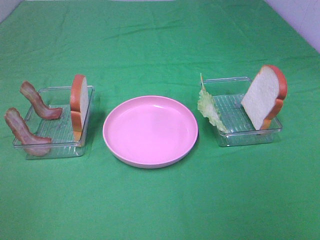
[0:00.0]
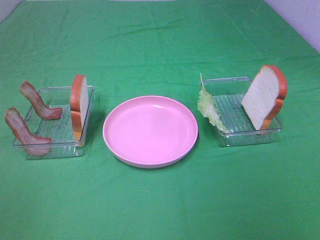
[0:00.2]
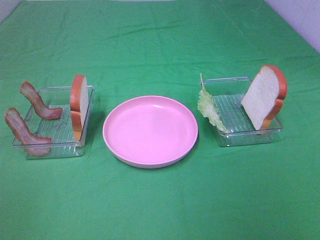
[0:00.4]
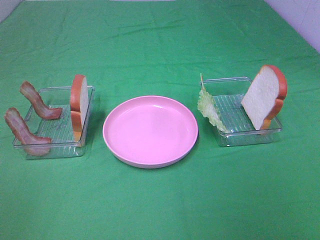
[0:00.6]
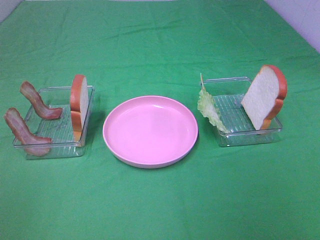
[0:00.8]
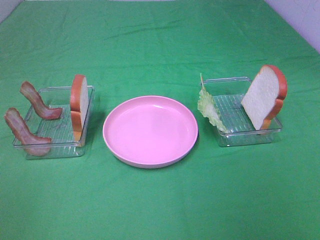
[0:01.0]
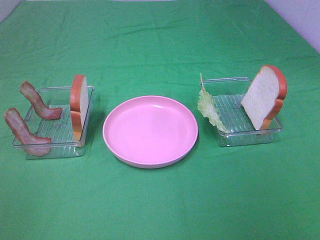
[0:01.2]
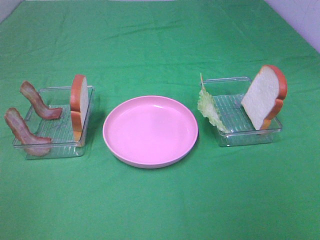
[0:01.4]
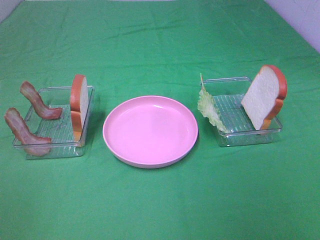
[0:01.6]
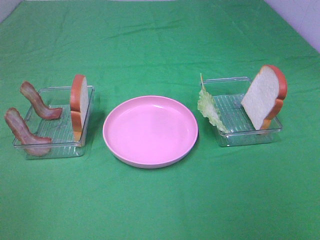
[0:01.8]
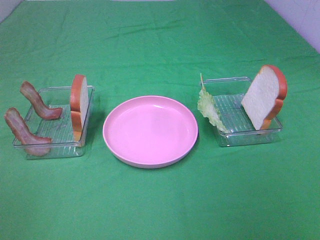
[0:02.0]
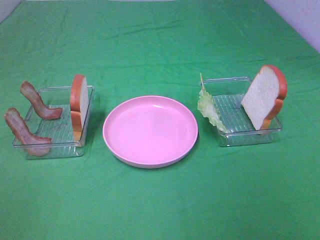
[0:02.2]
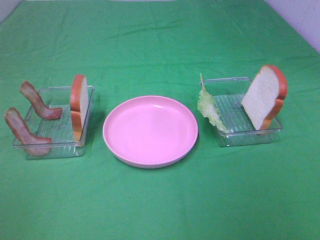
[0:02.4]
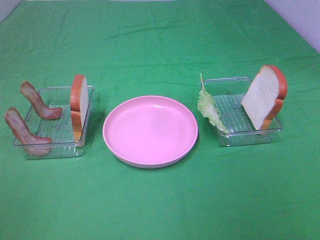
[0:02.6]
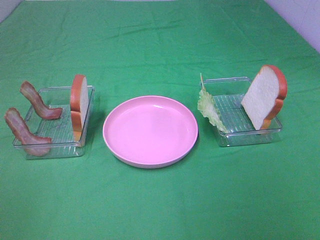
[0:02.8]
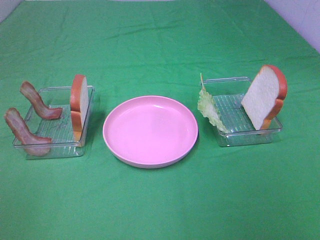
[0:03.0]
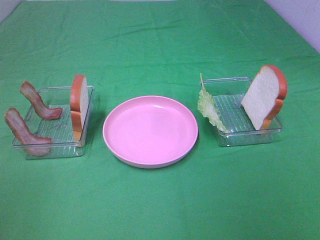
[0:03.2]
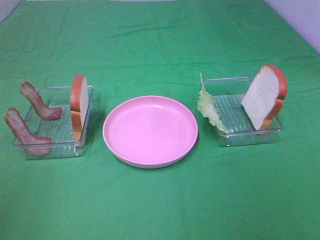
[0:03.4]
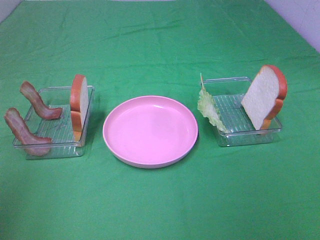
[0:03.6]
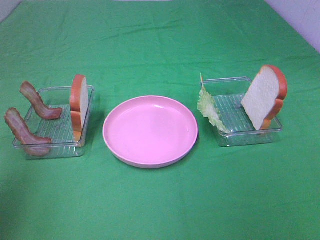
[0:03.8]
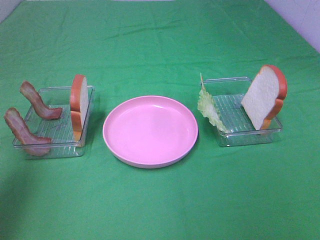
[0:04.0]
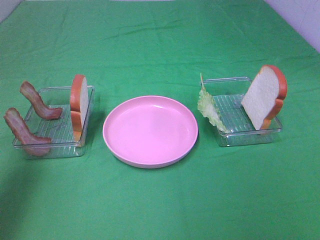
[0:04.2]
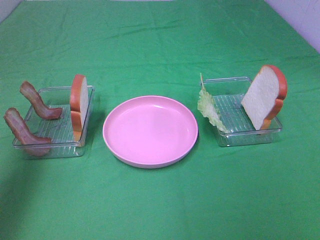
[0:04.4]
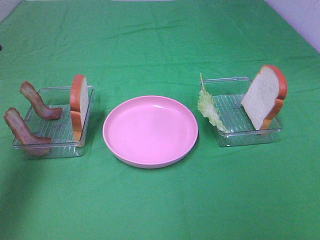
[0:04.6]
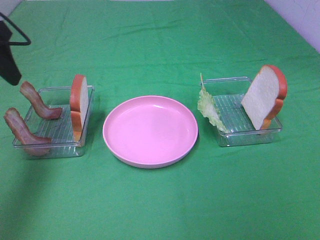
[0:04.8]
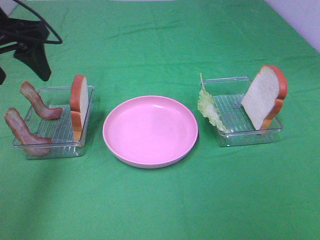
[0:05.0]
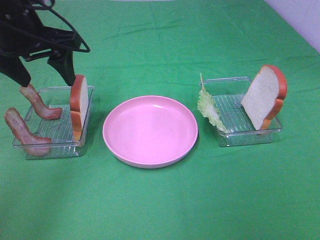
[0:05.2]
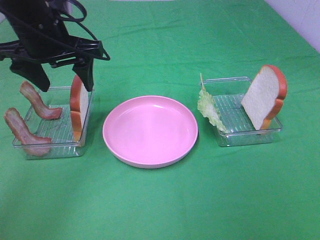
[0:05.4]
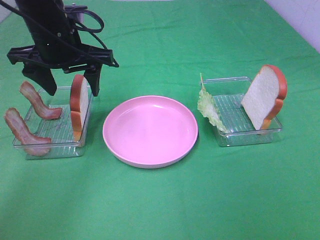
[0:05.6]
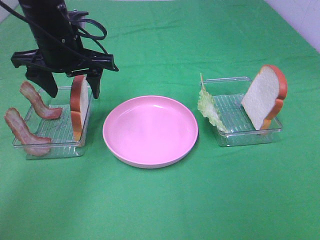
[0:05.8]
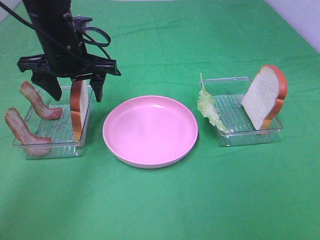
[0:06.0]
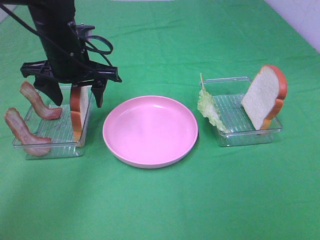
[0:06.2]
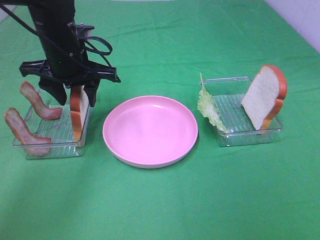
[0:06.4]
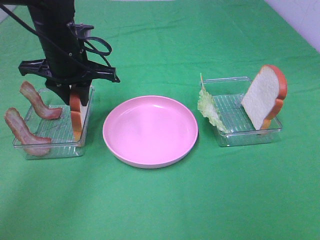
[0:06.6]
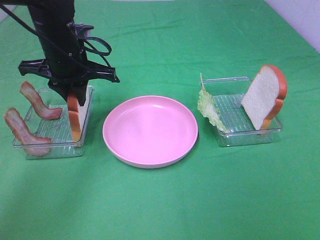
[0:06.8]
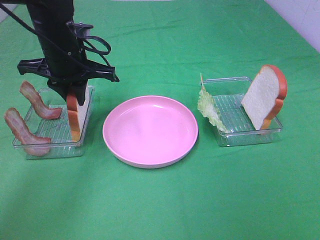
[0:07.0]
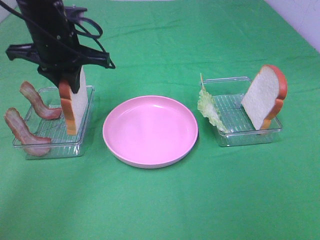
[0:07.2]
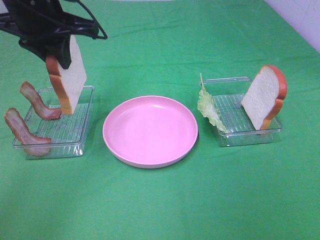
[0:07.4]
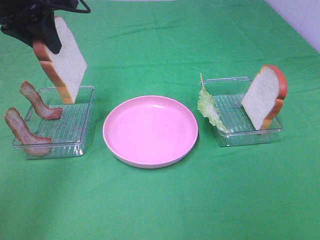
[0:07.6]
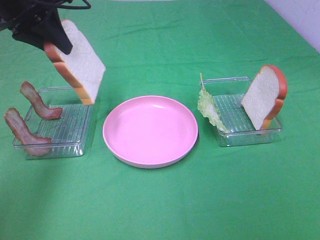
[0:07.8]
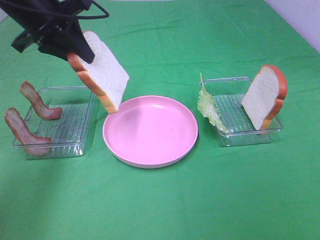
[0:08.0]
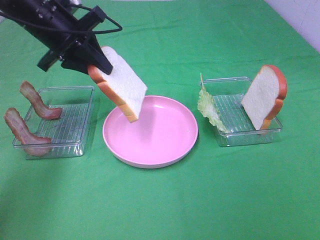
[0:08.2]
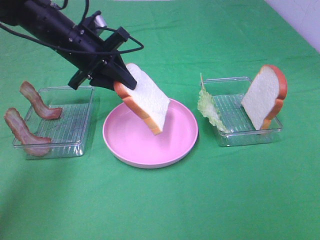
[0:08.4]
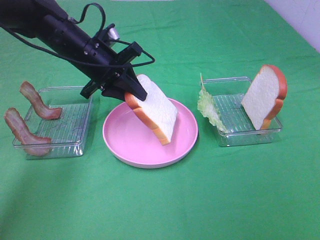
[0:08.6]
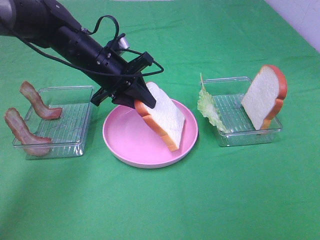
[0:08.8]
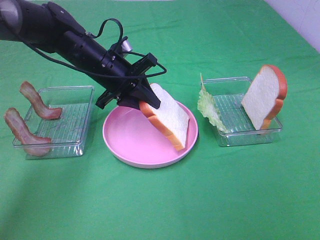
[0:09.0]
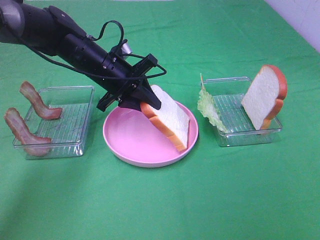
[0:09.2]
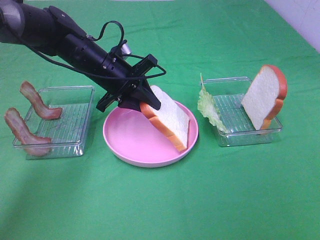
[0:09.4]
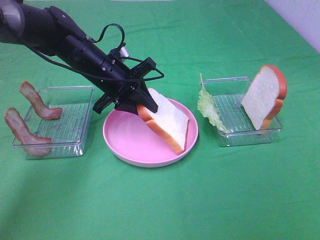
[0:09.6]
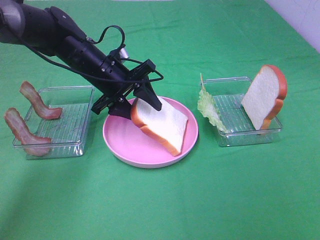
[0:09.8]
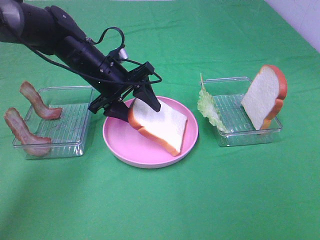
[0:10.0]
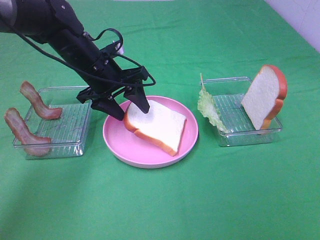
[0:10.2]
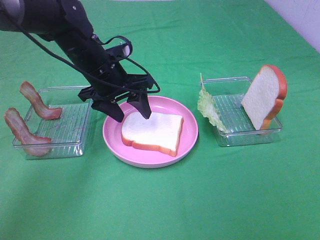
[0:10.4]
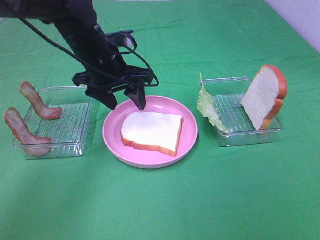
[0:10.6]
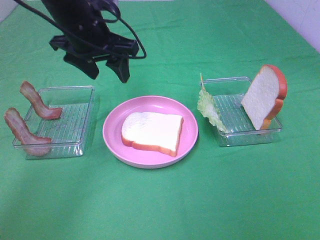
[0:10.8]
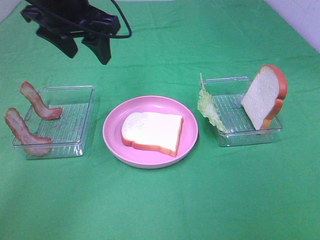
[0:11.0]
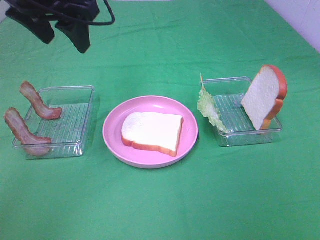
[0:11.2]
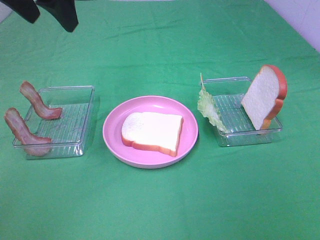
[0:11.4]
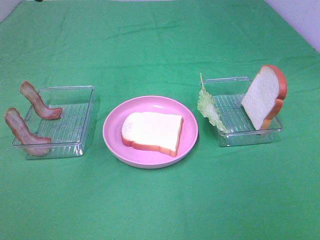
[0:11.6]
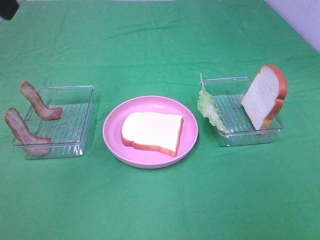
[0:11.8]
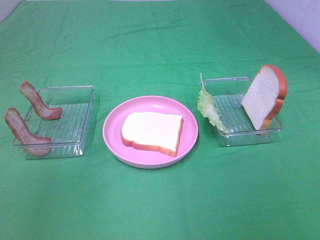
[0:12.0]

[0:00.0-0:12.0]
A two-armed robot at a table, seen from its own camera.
Task of the whole recording: Make sandwiches.
Step, 0:00.0 to 0:06.8: Left hand:grab the bread slice.
Step, 0:07.0 to 0:10.4: Left hand:place the bread slice on the plate.
0:00.0 to 0:03.0: Neither gripper changes place.
0:03.0 to 0:04.4: The left gripper moves forward, some 25 cm.
0:04.4 to 0:06.0: The left gripper heads to the right, forward and downward, covering some 25 cm.
0:06.0 to 0:07.6: The left gripper moves upward and to the left, some 10 cm, and closes its fingers.
0:07.6 to 0:09.0: The left gripper moves downward and to the right, roughly 20 cm.
0:09.0 to 0:10.4: The left gripper opens its fingers.
0:10.4 to 0:12.0: The left gripper heads upward, backward and to the left, covering about 35 cm.

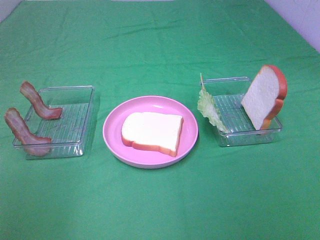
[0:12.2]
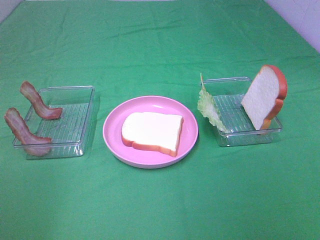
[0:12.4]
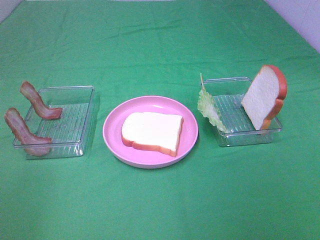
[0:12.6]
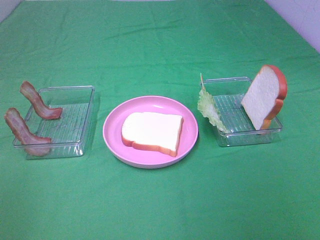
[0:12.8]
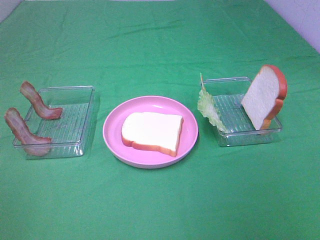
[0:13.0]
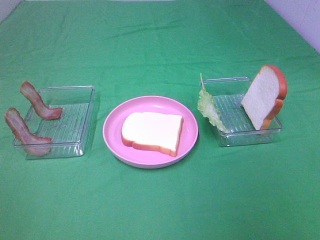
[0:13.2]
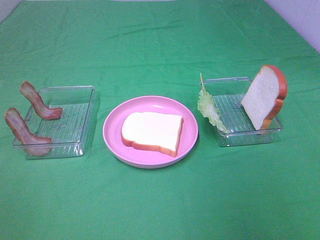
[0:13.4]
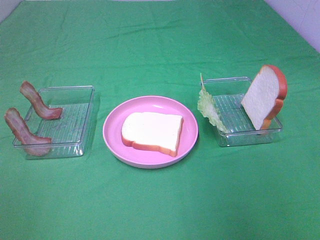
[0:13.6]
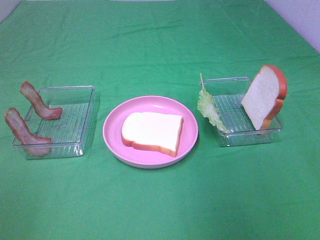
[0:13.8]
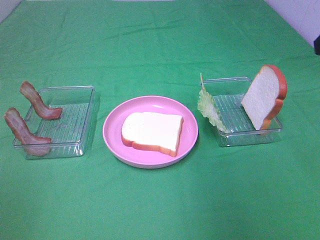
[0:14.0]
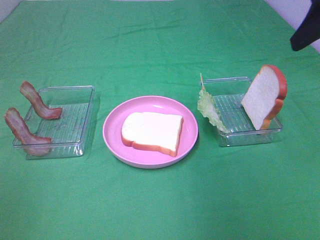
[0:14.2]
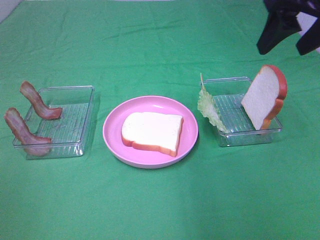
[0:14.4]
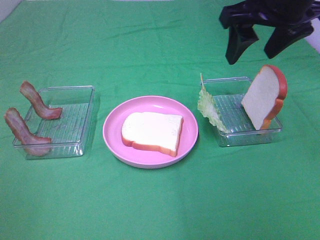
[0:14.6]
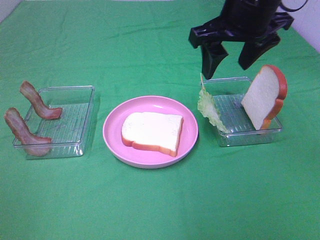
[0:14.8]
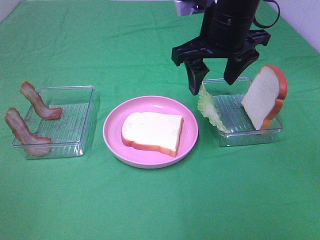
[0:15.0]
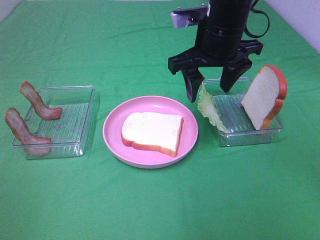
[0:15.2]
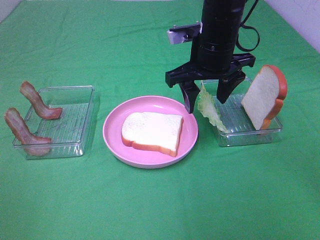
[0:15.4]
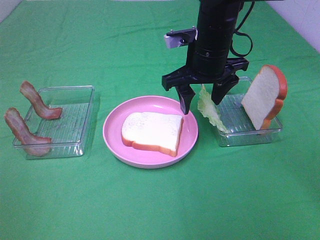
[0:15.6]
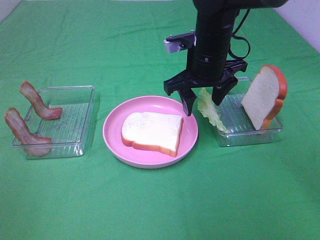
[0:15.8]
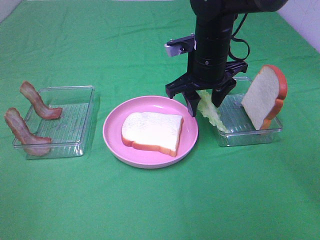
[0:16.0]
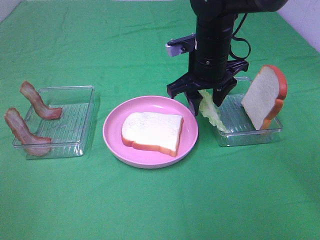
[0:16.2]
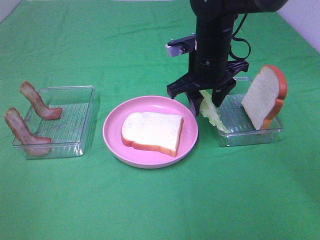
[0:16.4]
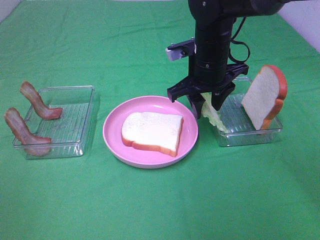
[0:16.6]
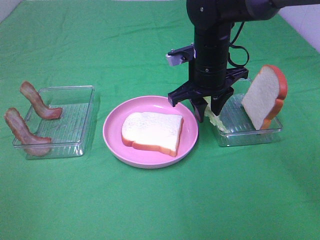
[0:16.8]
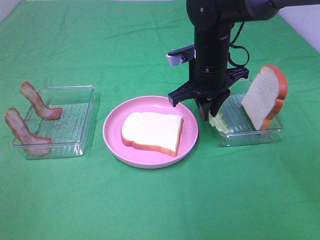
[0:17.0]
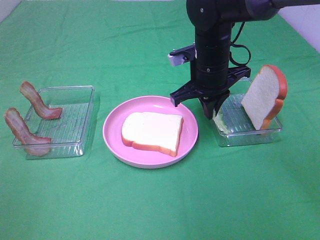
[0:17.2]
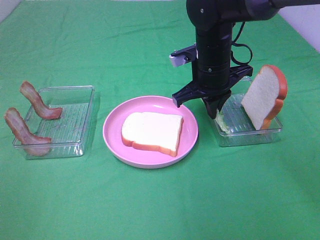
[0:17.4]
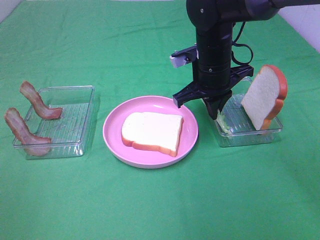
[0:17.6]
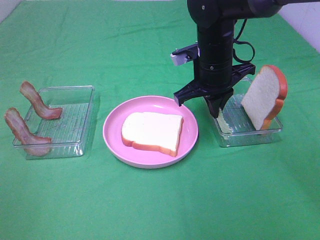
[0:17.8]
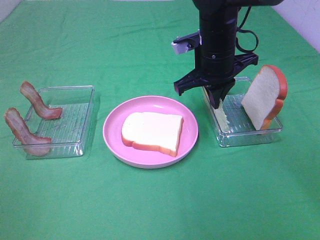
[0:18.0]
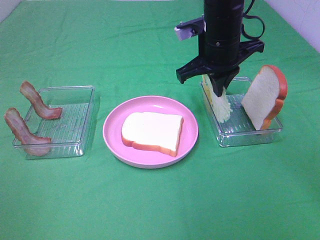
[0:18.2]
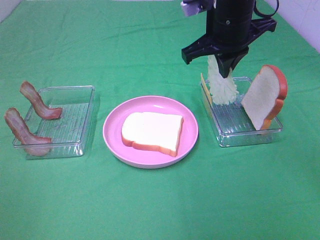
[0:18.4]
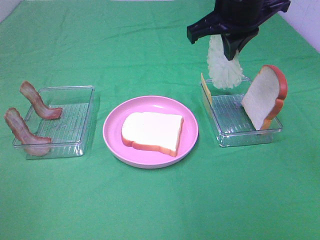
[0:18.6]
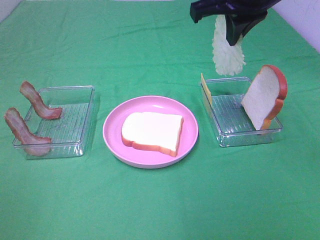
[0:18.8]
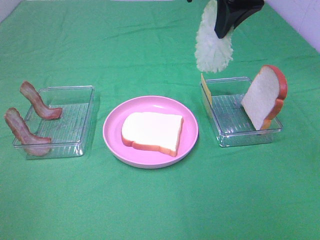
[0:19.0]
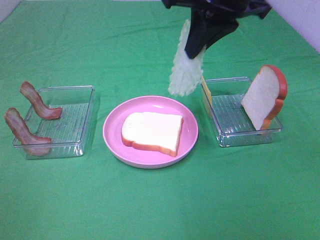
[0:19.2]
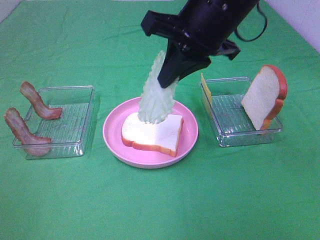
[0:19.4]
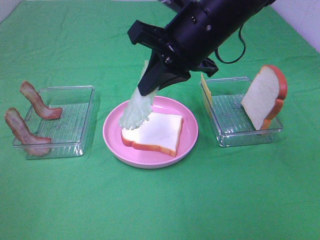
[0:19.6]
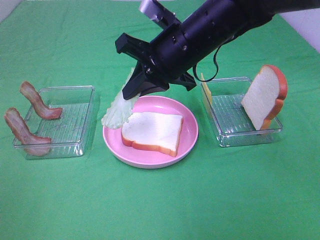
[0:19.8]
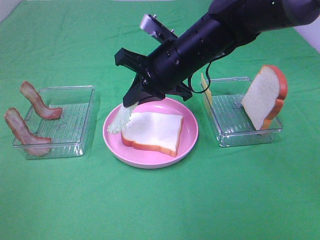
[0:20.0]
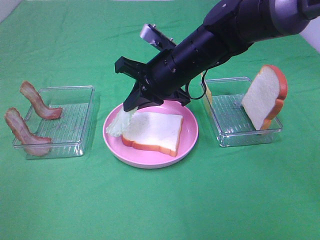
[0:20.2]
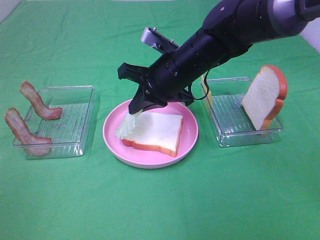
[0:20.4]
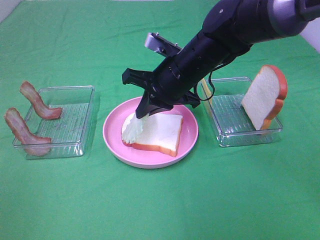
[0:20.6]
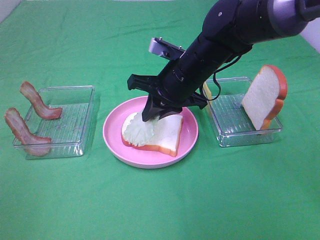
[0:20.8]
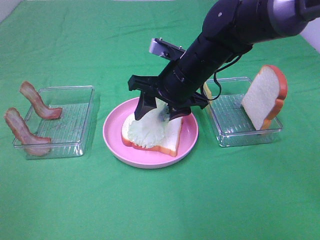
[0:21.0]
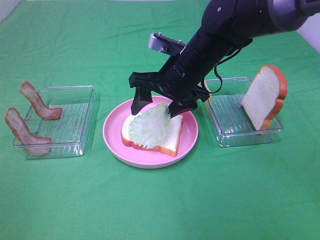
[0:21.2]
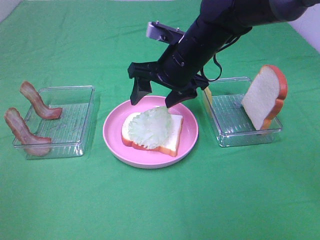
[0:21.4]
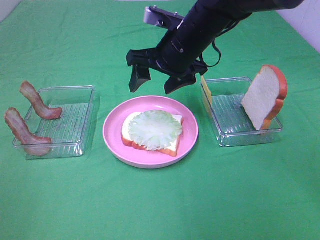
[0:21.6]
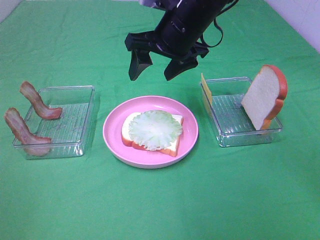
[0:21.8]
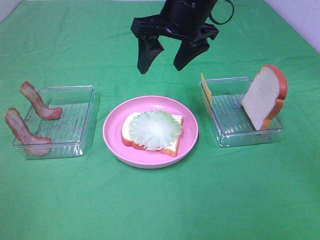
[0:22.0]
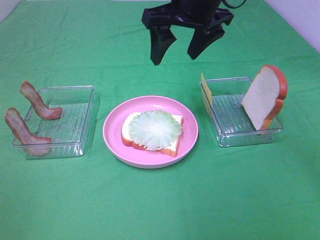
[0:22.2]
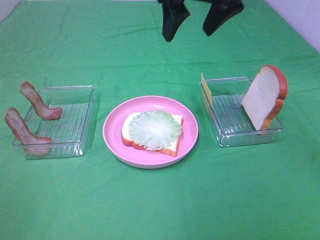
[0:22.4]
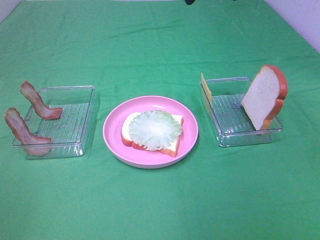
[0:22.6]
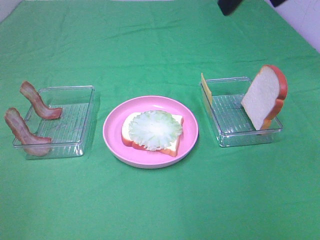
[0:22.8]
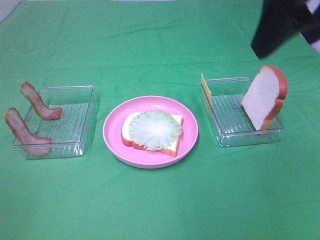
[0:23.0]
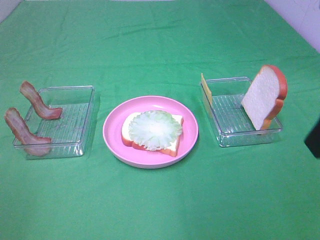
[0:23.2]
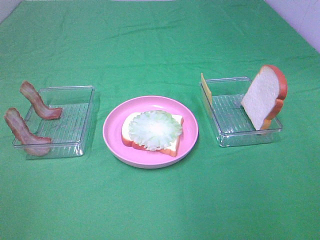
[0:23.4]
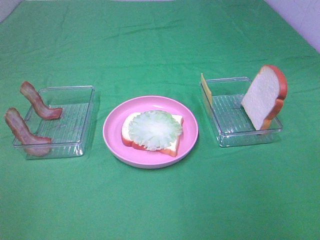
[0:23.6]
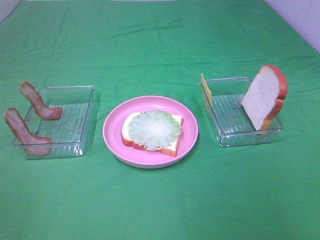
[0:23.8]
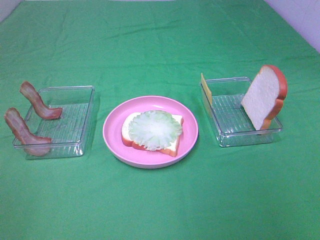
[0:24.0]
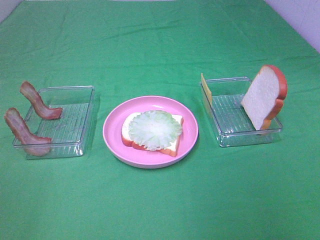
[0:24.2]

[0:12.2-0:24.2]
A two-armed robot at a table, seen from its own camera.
Task of the whole recording: Make sandwiches.
Step, 0:12.2 to 0:17.8: Right hand:grab the lettuce slice.
Step, 0:18.0 to 0:21.6: Right hand:place the lettuce slice on the bread slice.
0:13.8 to 0:15.2: The right gripper heads to the left, forward and downward, covering some 30 cm.
0:15.2 to 0:16.6: The right gripper travels downward by roughly 5 cm.
0:16.6 to 0:18.2: The right gripper travels upward by roughly 5 cm, and closes its fingers.
0:18.2 to 0:19.8: The right gripper moves roughly 15 cm upward and comes back.
0:19.8 to 0:21.2: The right gripper shifts about 5 cm downward, and opens its fingers.
0:21.2 to 0:22.6: The right gripper travels upward by some 25 cm.
